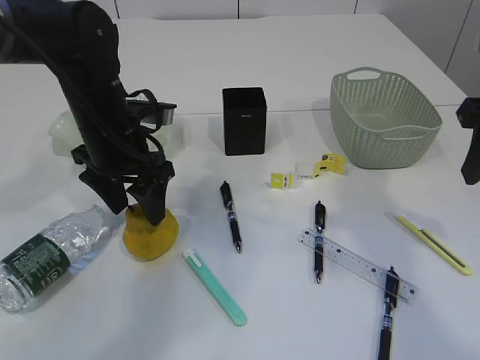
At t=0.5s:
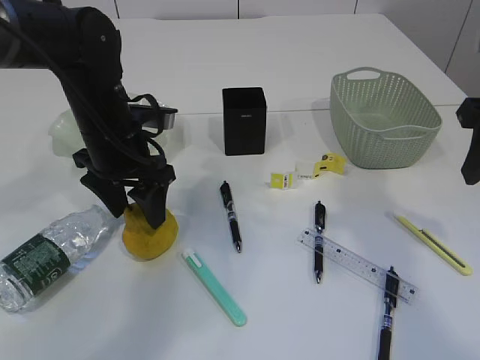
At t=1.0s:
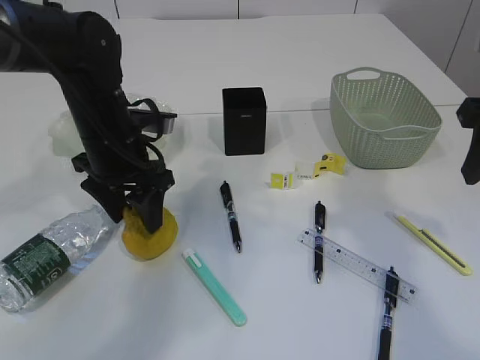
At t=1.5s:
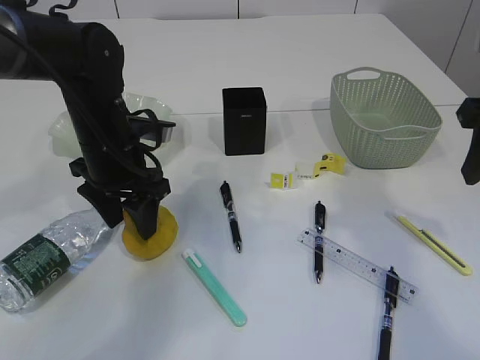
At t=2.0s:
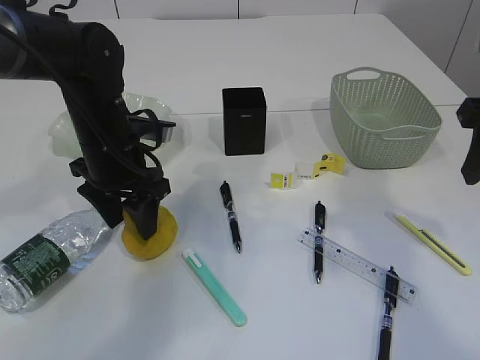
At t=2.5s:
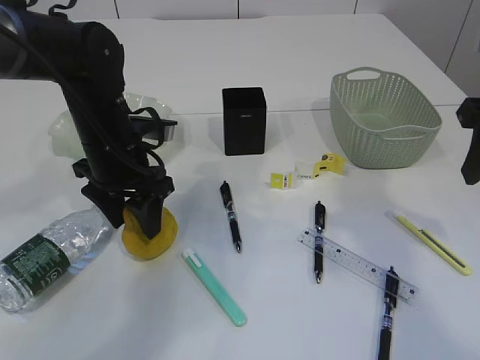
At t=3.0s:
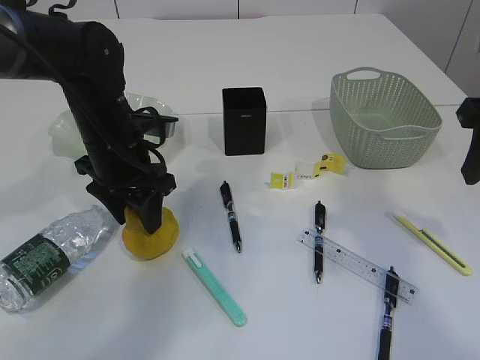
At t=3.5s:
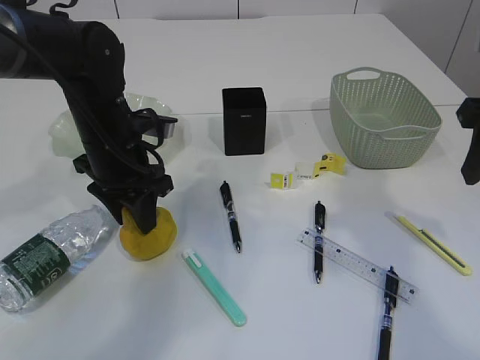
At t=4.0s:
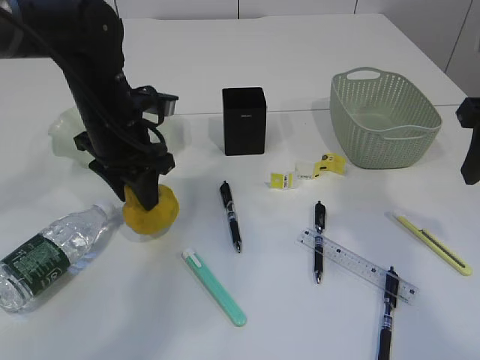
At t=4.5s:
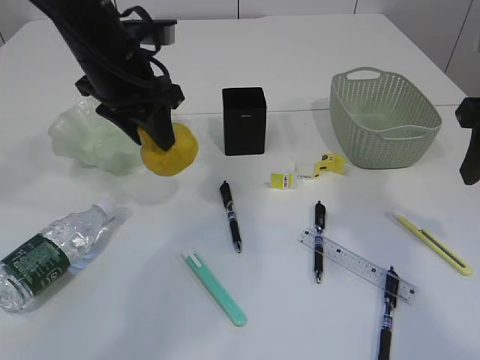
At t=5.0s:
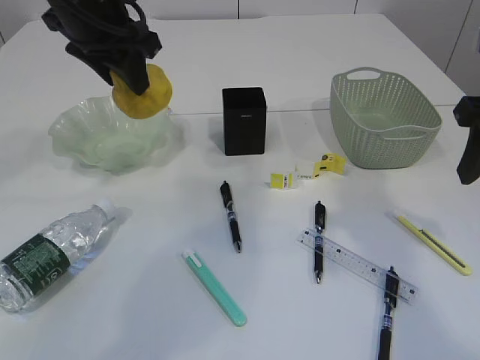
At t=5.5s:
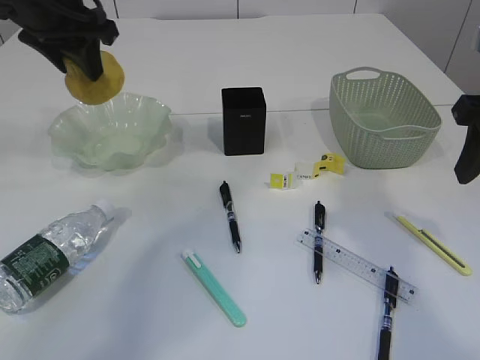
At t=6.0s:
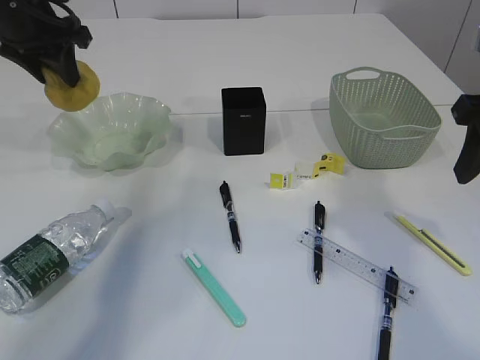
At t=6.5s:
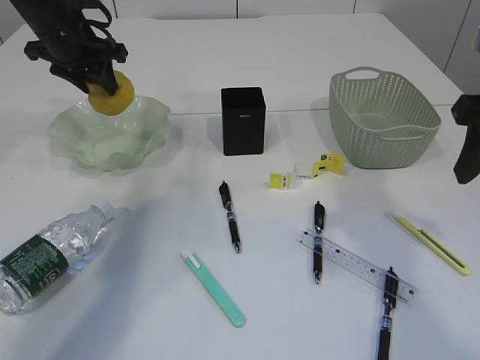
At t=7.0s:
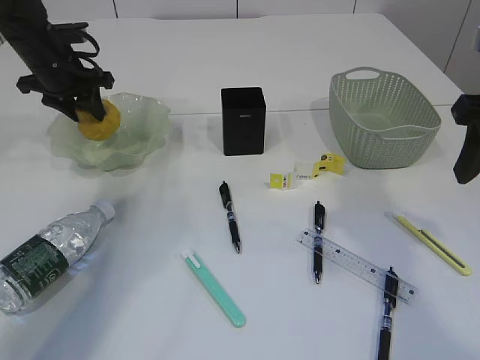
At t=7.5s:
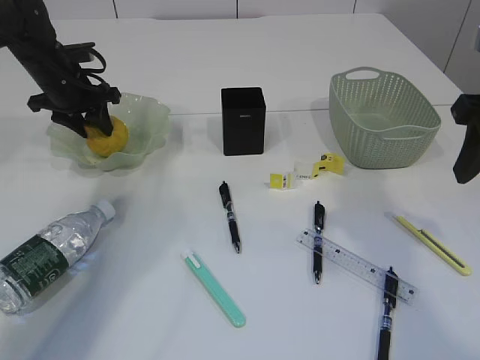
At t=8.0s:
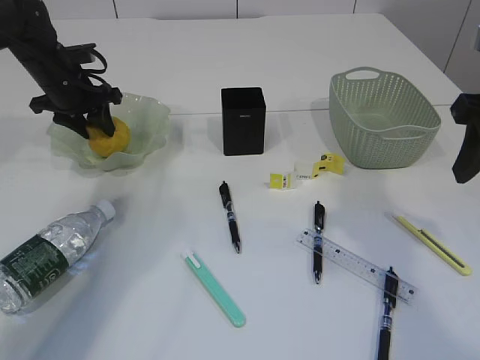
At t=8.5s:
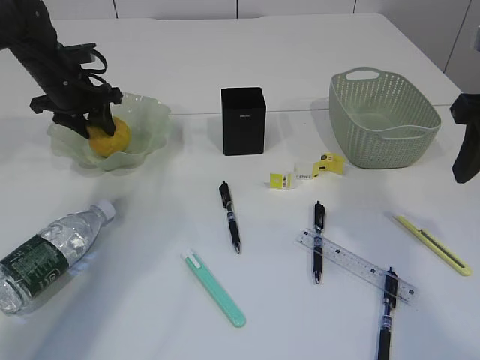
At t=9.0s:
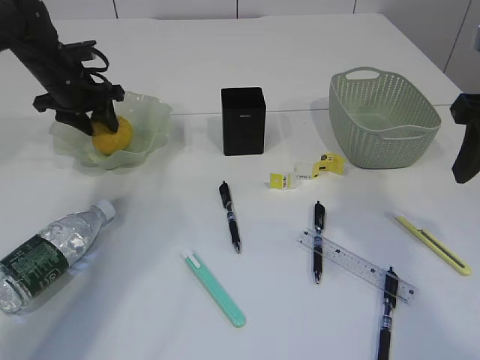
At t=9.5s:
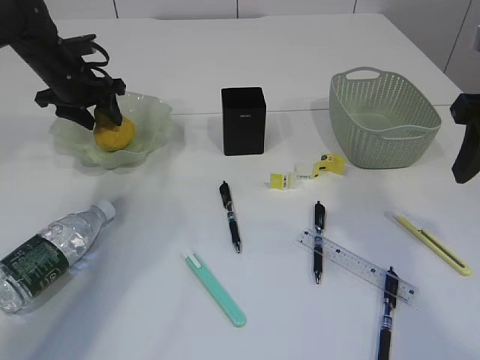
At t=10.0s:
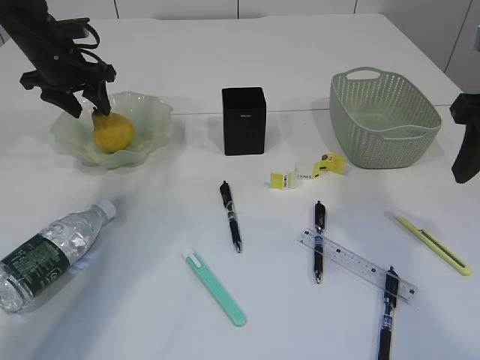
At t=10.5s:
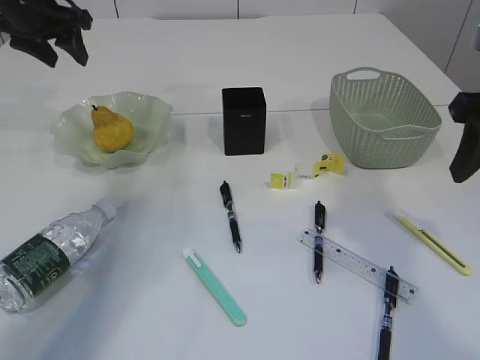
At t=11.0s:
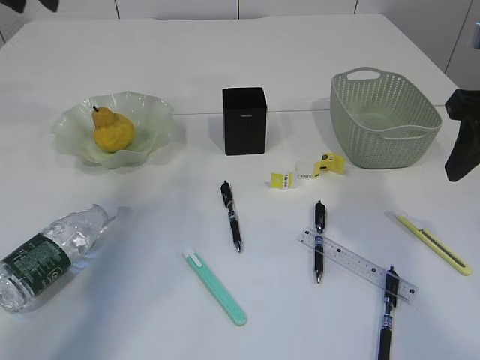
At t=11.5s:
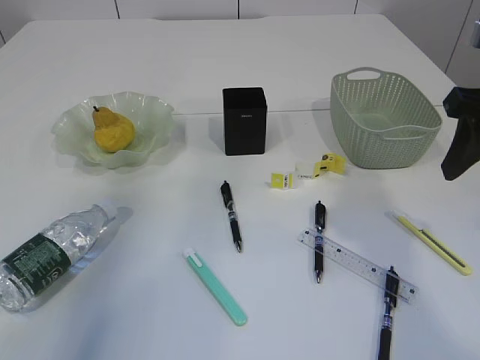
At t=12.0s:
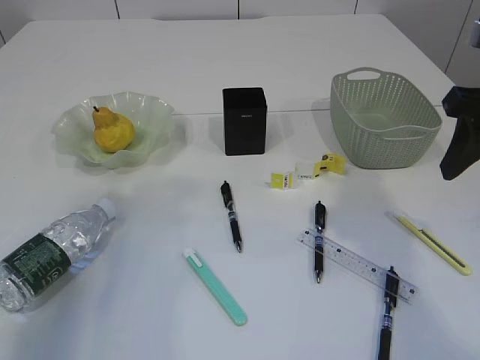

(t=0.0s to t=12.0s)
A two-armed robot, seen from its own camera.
Step, t=4.5s - t=10.0s: Place the pear in the plate.
t=0.0s - t=2.0s: There are only small adjustments of the grippers.
t=2.0s - t=4.0s: The left gripper closes.
t=4.0s - t=6.0s: The left gripper is displaced upward, to the left and forward by some 15 cm.
t=6.0s - t=8.0s: The left gripper heads downward and forward, covering roughly 15 cm.
t=8.0s - t=10.0s: There are only small adjustments of the grippers.
t=10.0s - t=12.0s: The left gripper heads backward and upward, covering roughly 35 cm.

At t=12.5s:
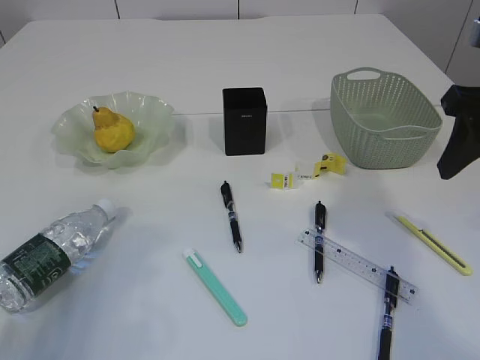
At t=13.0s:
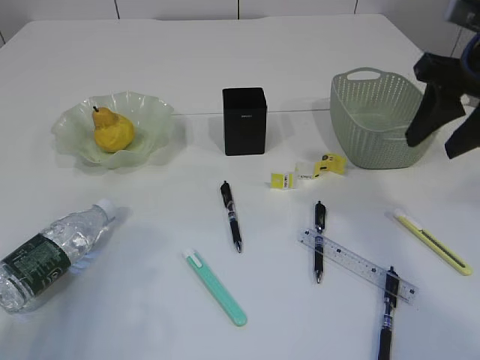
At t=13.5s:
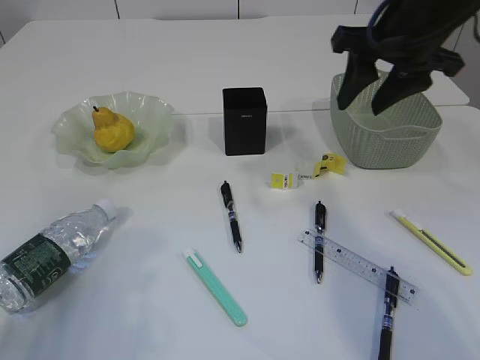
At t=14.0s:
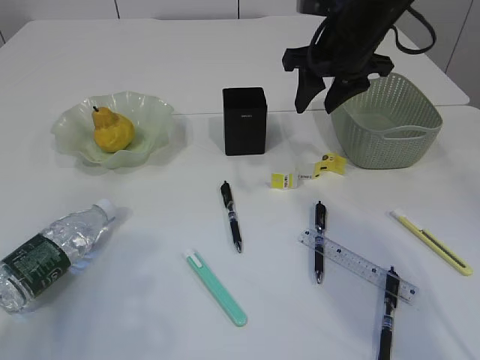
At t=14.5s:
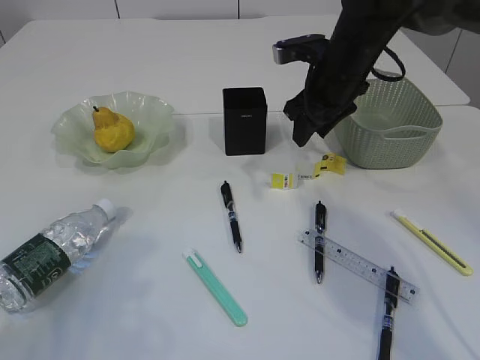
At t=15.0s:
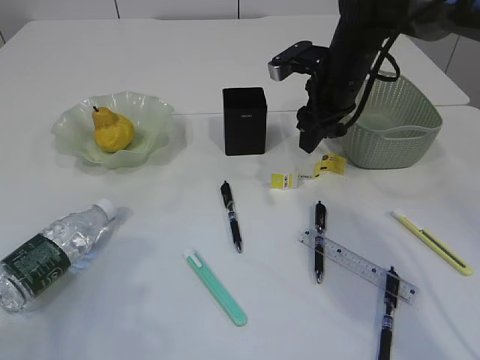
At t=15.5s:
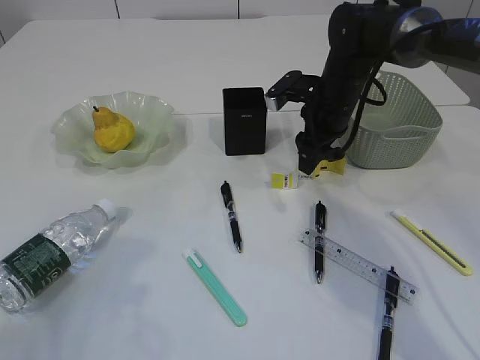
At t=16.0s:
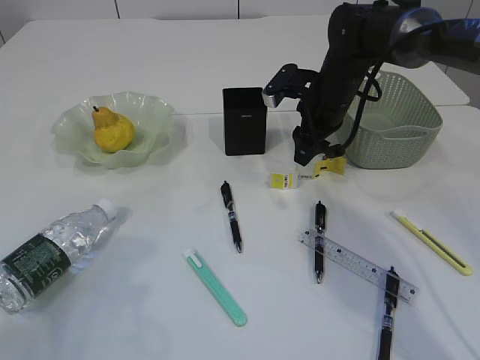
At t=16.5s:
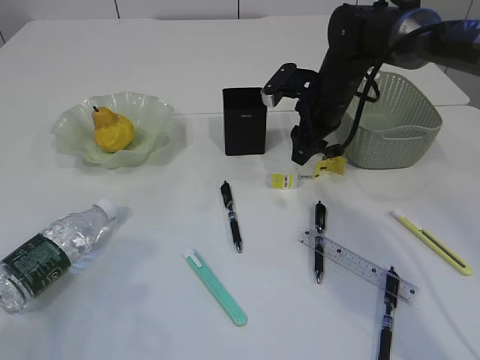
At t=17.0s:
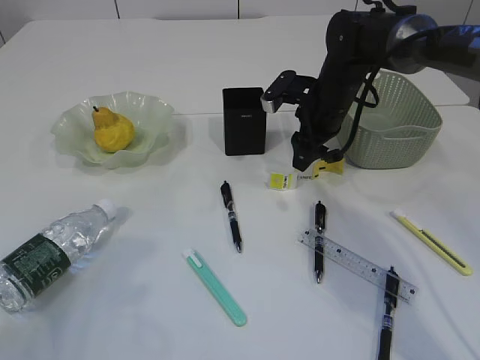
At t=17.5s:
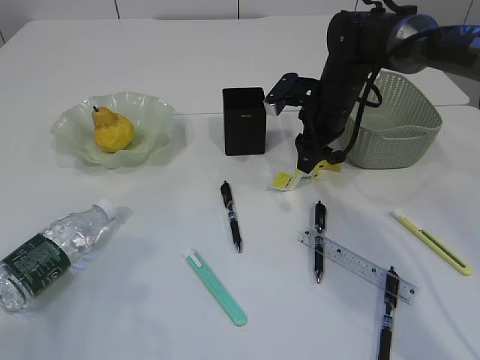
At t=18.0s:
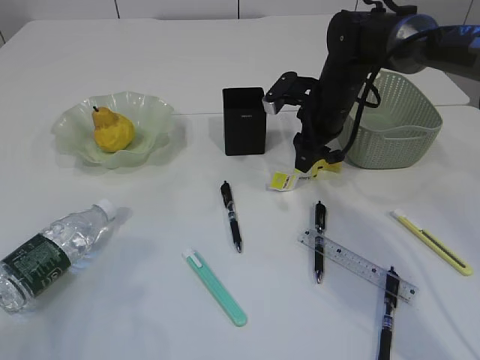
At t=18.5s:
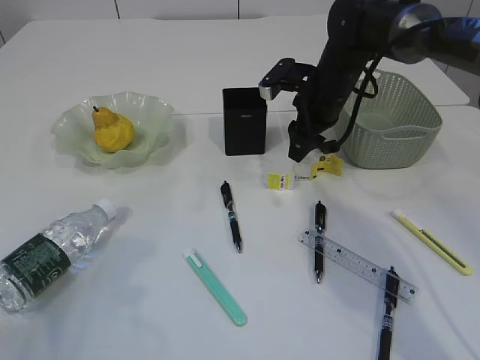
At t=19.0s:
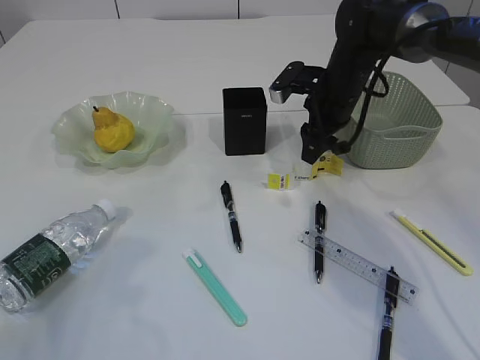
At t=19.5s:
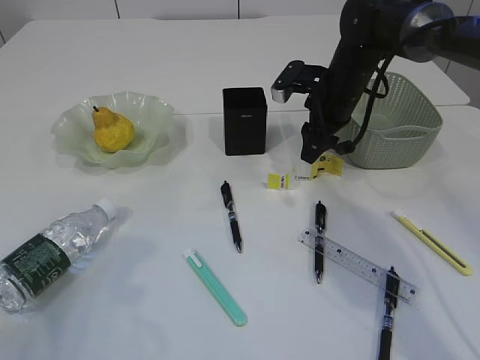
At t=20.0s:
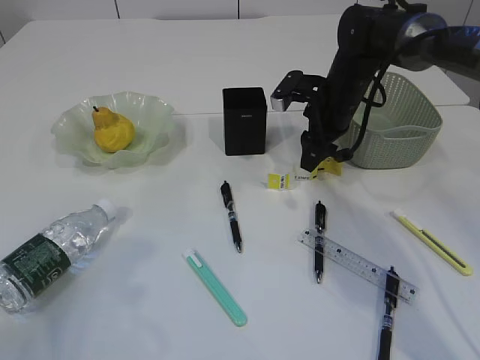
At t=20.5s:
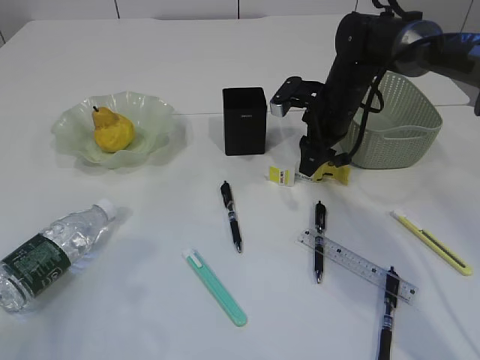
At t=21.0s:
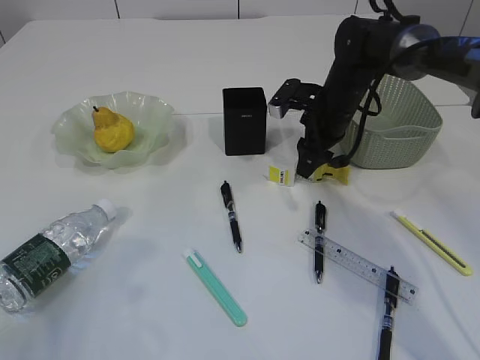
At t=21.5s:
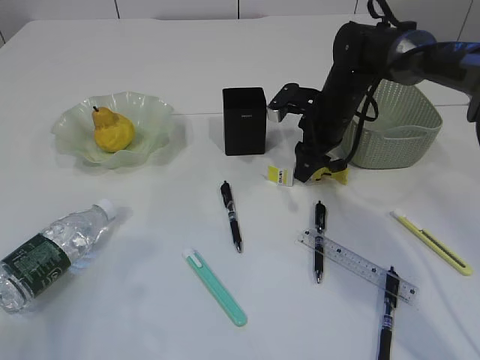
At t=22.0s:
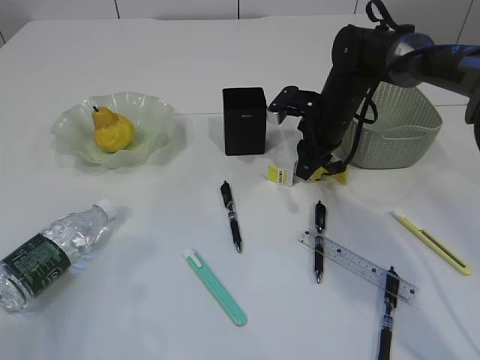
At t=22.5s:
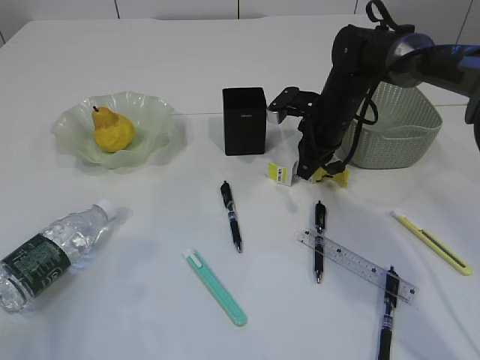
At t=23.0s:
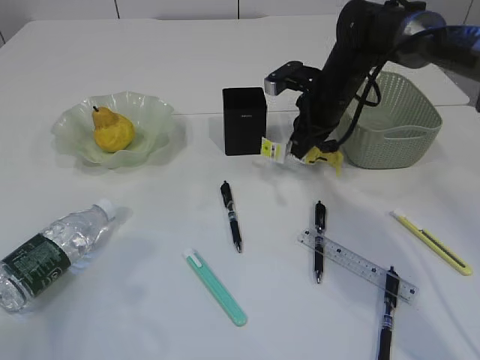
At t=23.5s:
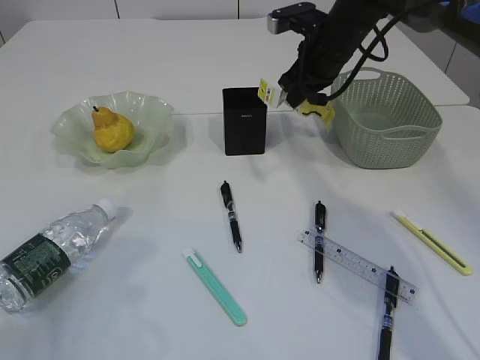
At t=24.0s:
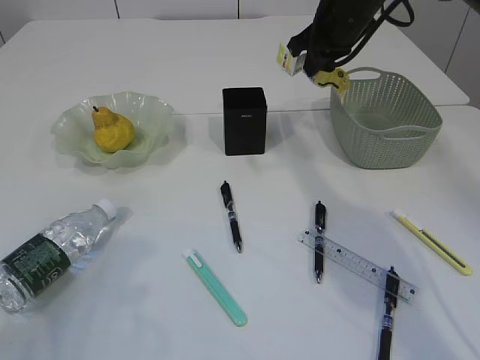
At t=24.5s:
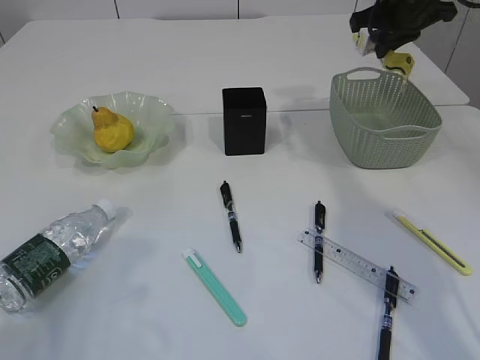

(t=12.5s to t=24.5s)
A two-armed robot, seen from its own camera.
Step, t=12.5s - t=23.0s: Pick up the plastic.
t=12.5s - t=14.5s: The right gripper moves forward, to the left and downward, about 25 cm.
t=14.5s - t=16.5s: The right gripper shifts by about 5 cm.
t=16.5s - t=18.5s: The two grippers keep their place.
t=18.5s - t=20.5s: The grippers stay close to where they were, moving slightly.
t=20.5s - t=22.5s: The right gripper closes its fingers.
t=22.5s - t=24.5s: The right gripper heads upward and to the right, covering some 20 cm.

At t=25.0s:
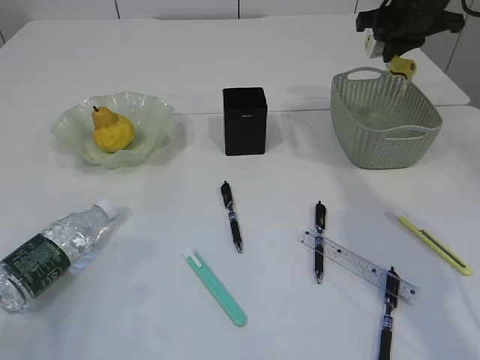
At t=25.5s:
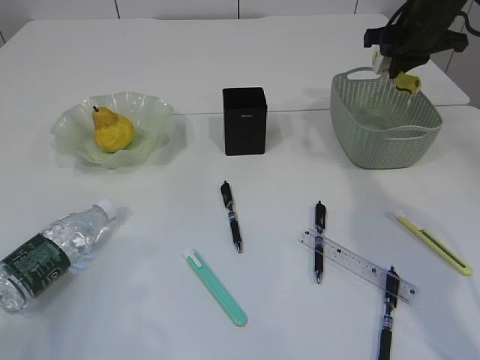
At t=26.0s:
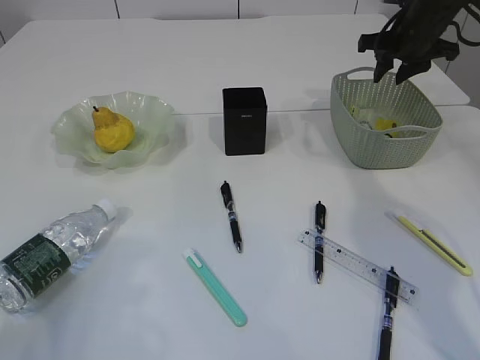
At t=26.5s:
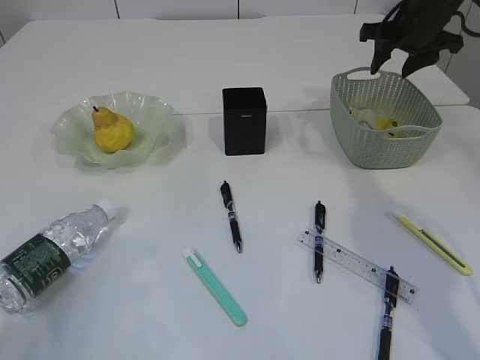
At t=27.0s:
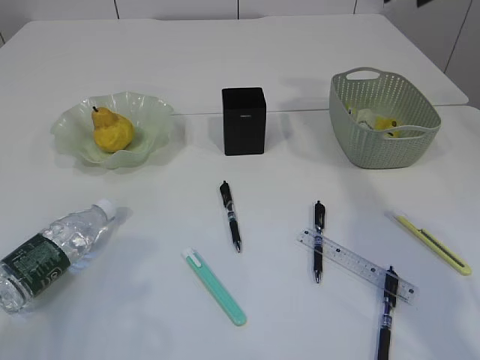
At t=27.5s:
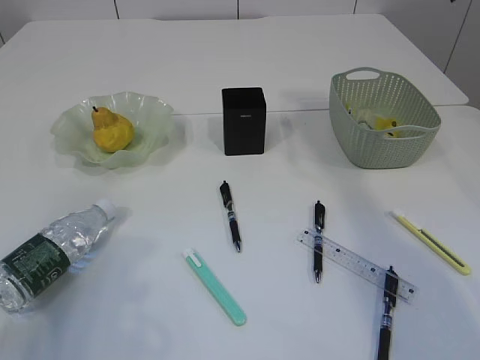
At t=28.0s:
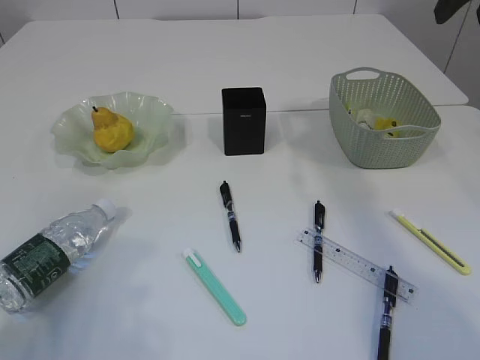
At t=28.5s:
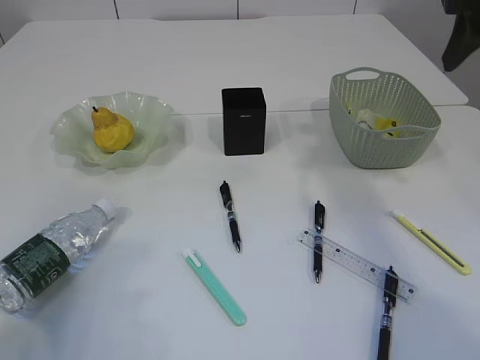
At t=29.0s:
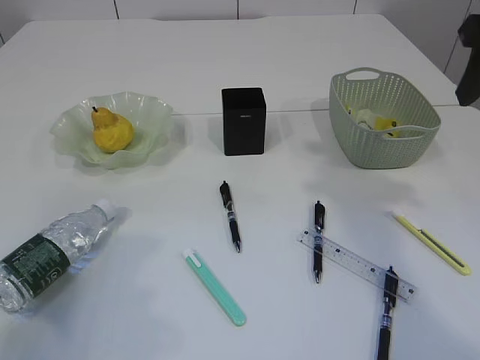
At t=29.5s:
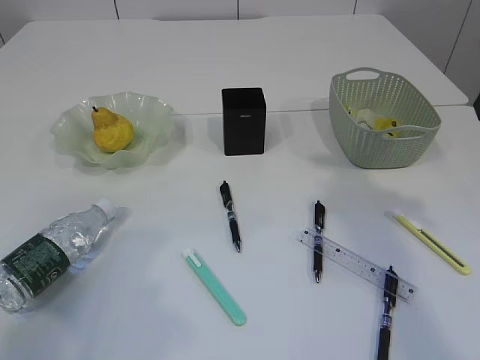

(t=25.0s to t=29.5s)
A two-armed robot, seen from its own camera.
t=25.0s - t=27.0s: The right gripper shifts about 10 cm upward, and opens.
